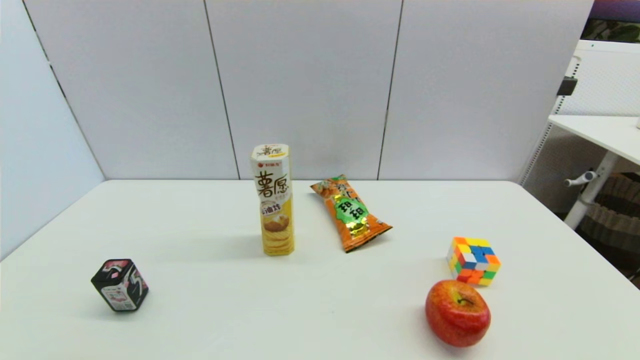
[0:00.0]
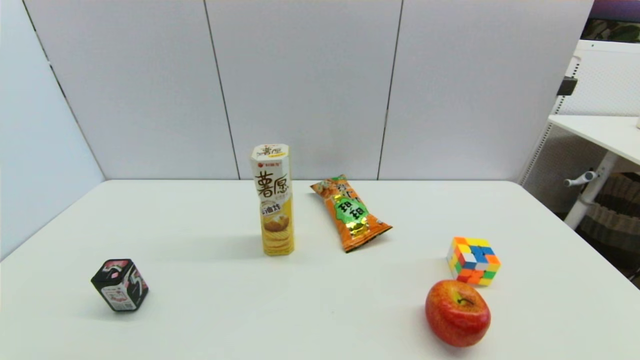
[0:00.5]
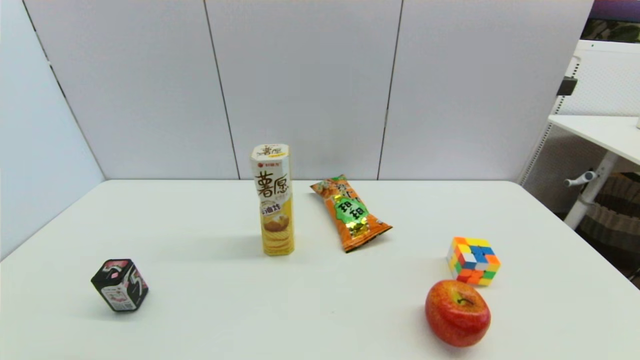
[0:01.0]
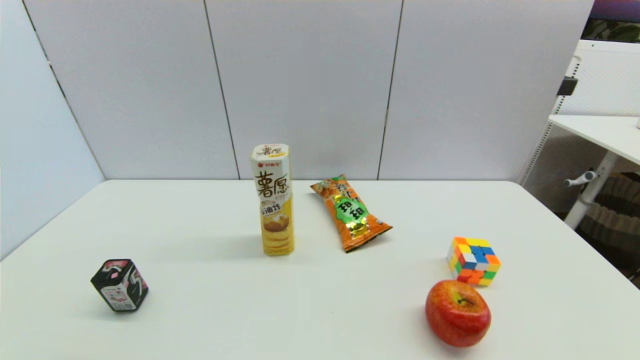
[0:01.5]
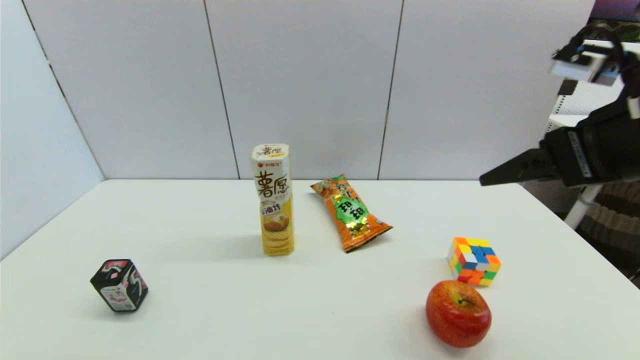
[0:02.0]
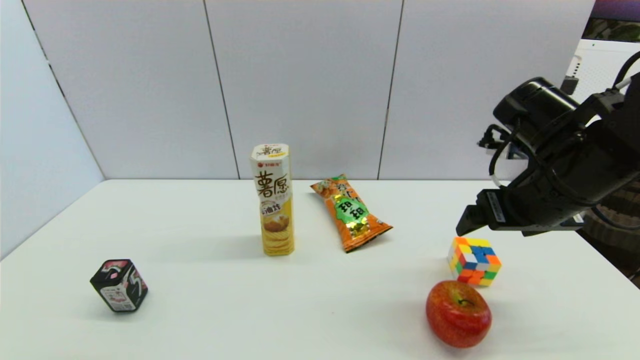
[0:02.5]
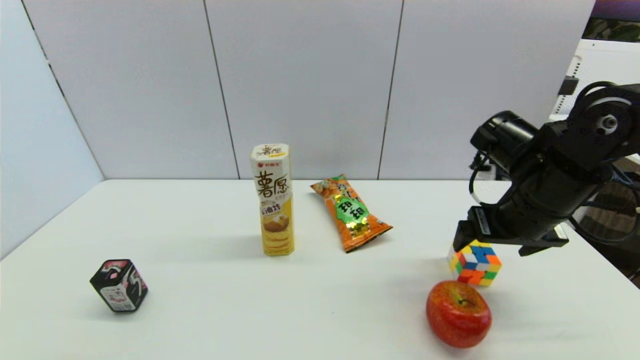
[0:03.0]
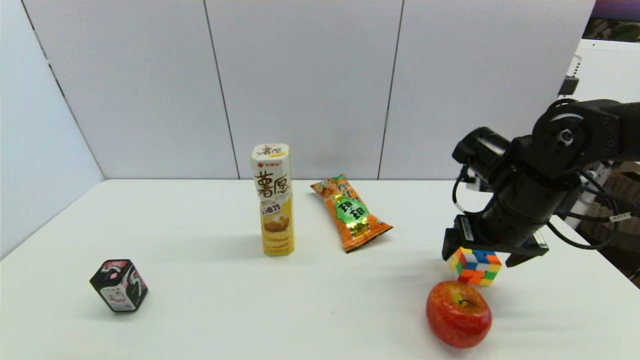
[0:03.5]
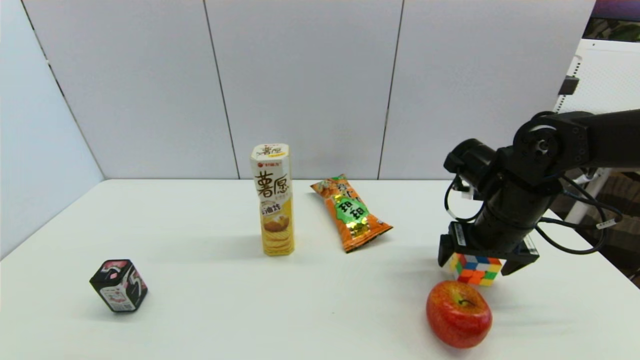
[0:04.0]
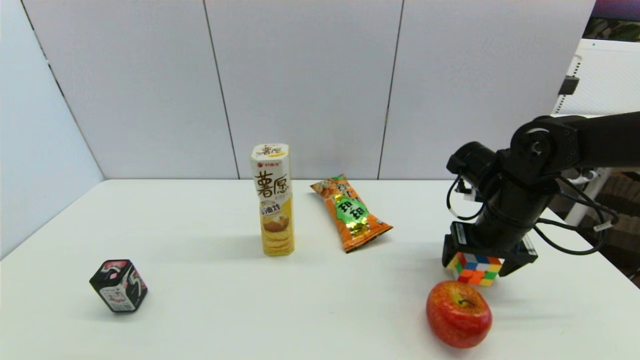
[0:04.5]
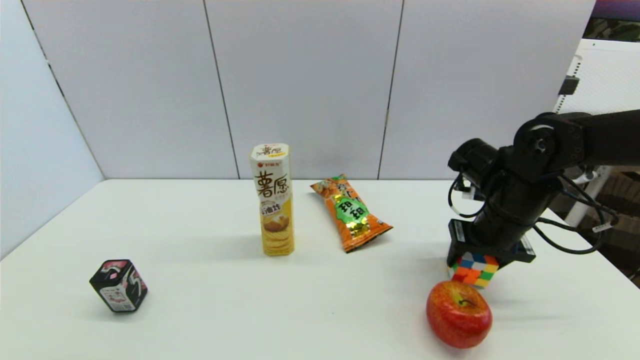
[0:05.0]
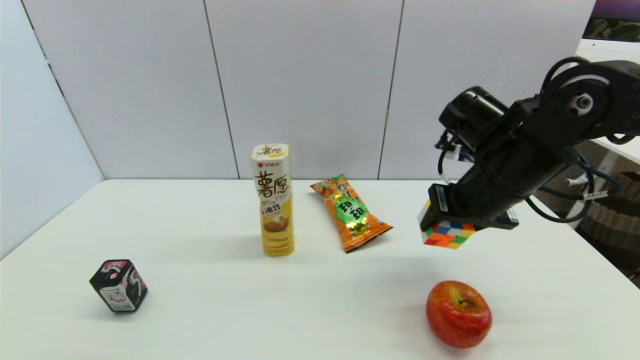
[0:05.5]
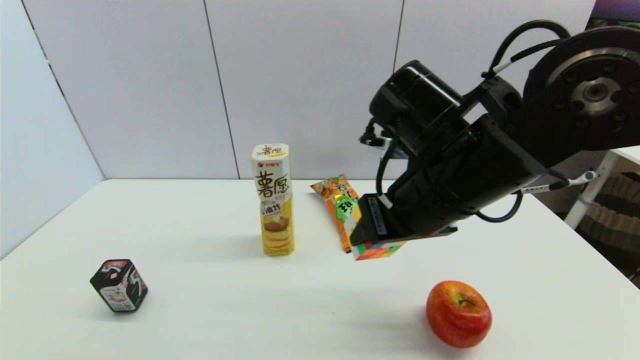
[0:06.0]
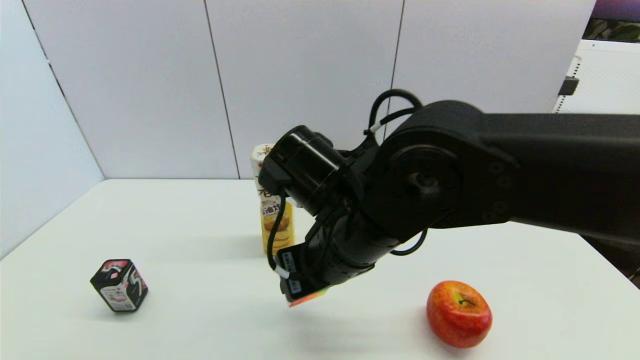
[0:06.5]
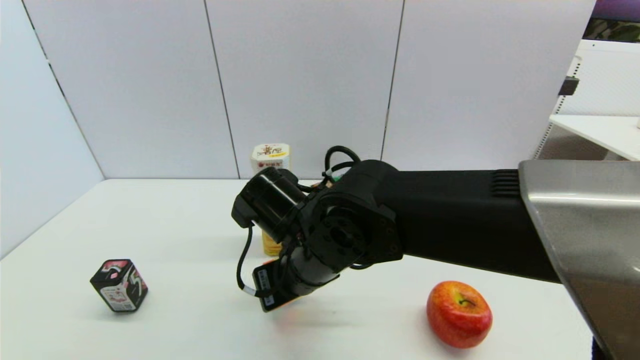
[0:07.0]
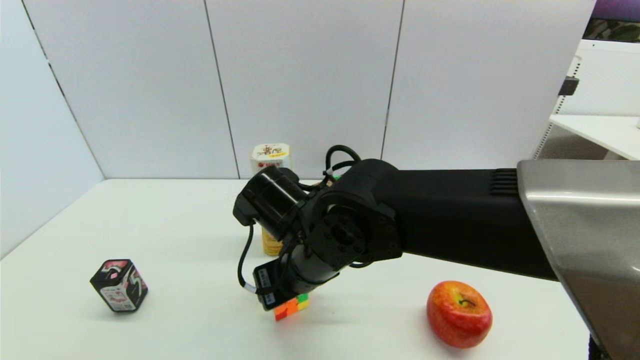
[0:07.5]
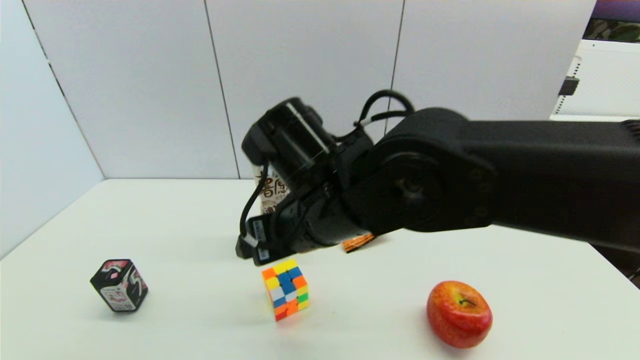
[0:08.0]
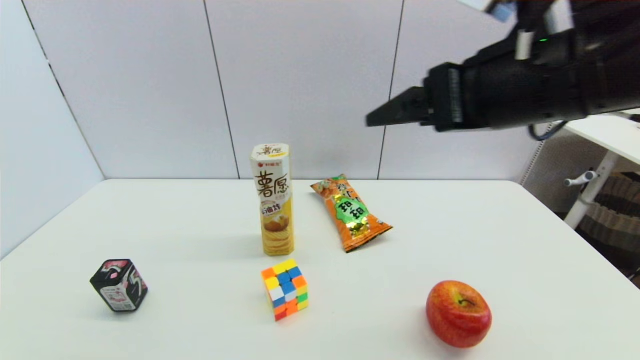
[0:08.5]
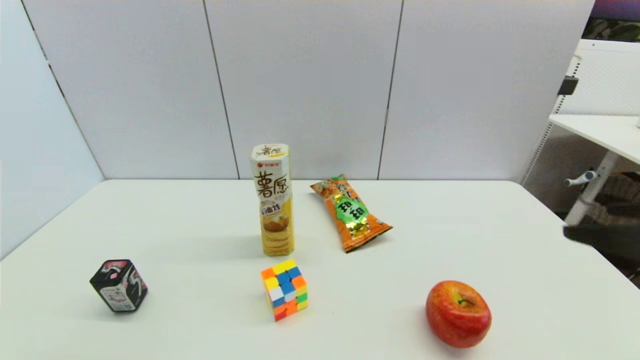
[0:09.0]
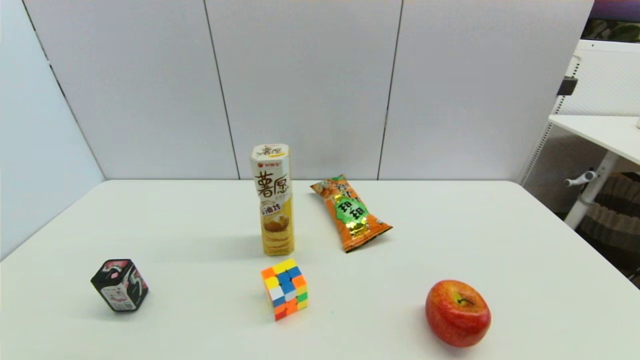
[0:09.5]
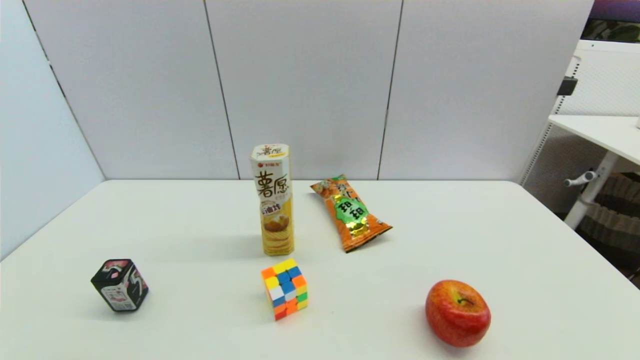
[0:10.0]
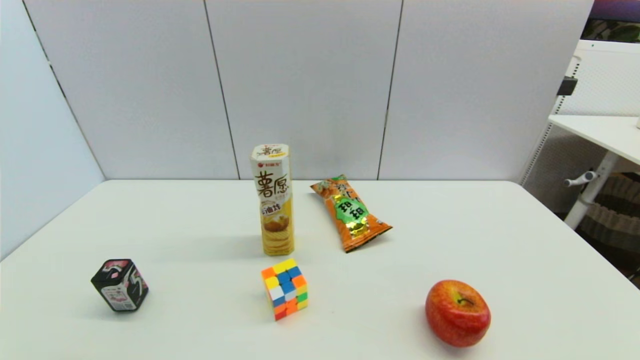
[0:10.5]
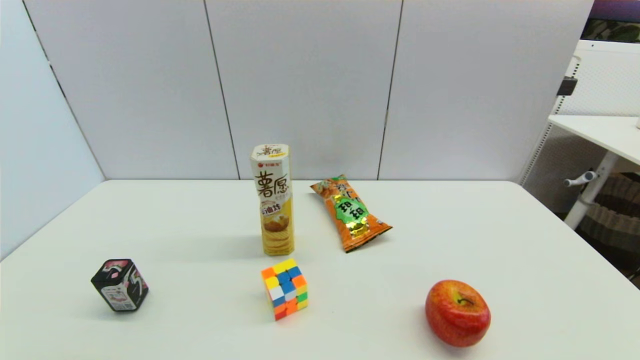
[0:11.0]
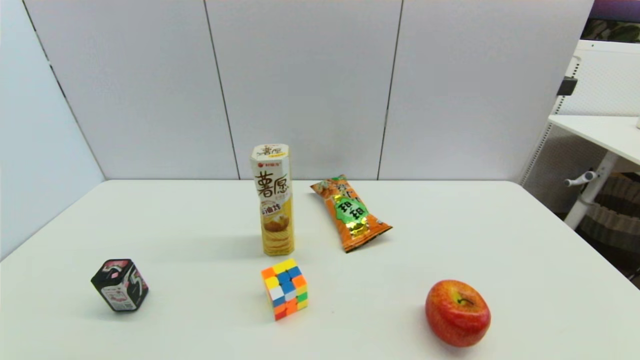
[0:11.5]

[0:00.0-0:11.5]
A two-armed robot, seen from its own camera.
Step, 0:02.0 to 0:04.5: Grasp the magic cube with right gripper.
Step, 0:05.0 to 0:07.5: Place the magic cube on the table with right gripper.
0:00.0 to 0:02.0: The right gripper moves upward and forward, roughly 35 cm.
0:02.0 to 0:04.0: The right gripper moves downward and forward, about 20 cm.
0:04.0 to 0:06.0: The right gripper is displaced to the left, upward and backward by about 20 cm, and closes up.
0:06.0 to 0:07.5: The right gripper travels to the left and downward by some 15 cm, and opens its fingers.
0:07.5 to 0:09.5: The right gripper travels to the right and backward by roughly 40 cm, and opens its fingers.
